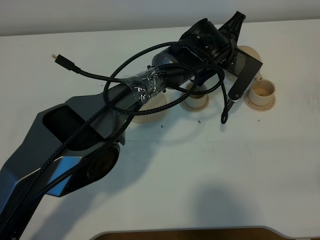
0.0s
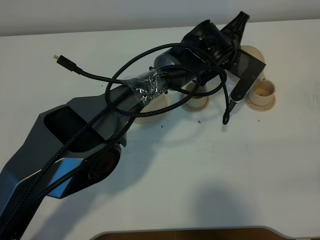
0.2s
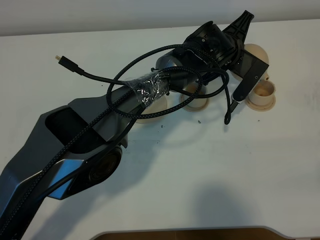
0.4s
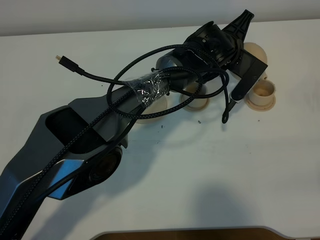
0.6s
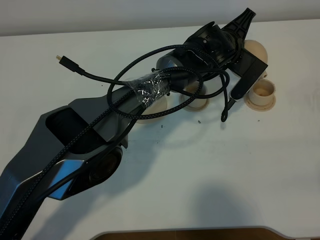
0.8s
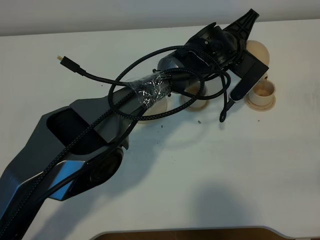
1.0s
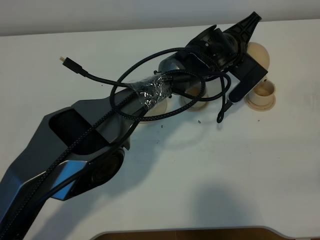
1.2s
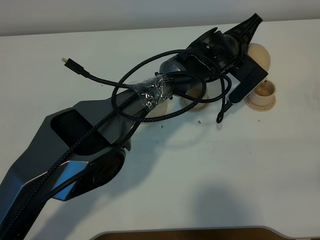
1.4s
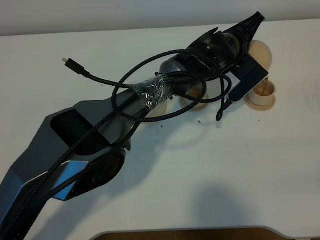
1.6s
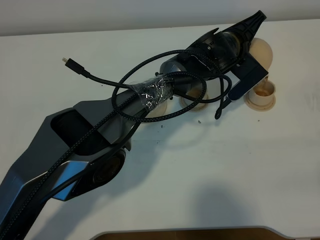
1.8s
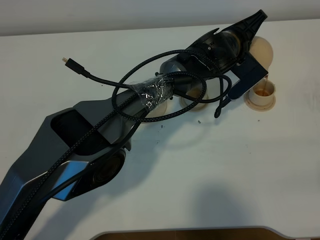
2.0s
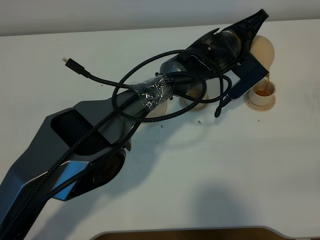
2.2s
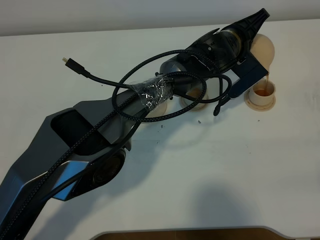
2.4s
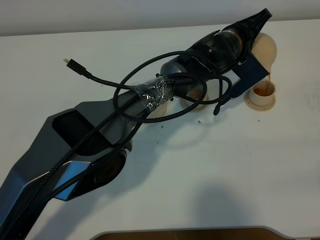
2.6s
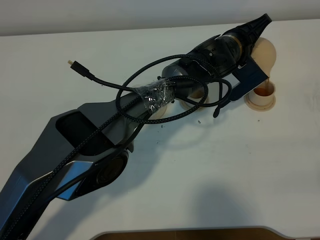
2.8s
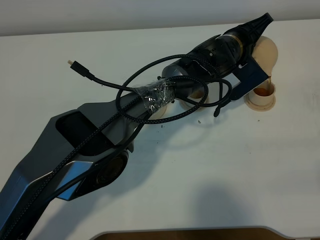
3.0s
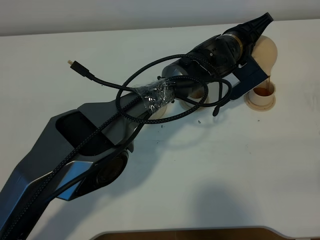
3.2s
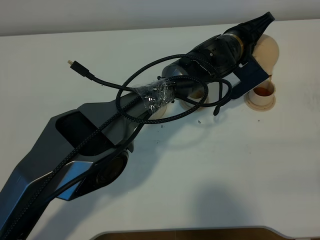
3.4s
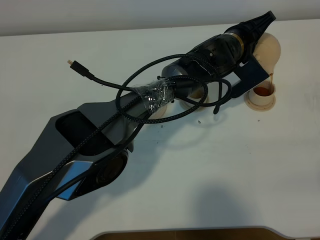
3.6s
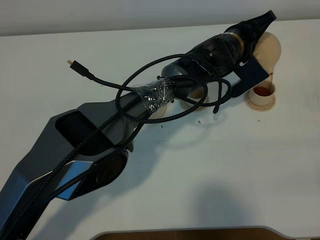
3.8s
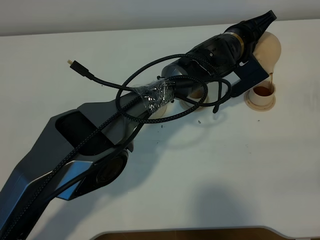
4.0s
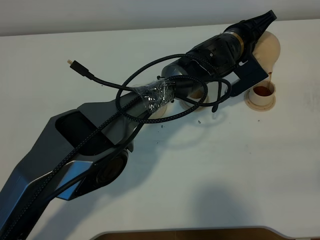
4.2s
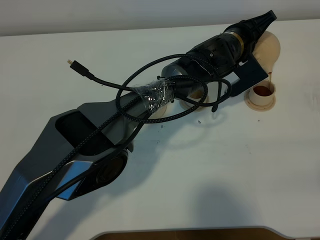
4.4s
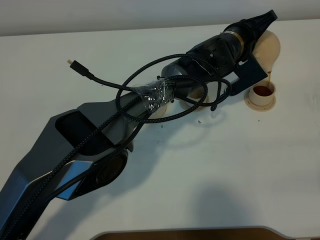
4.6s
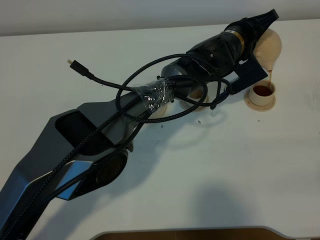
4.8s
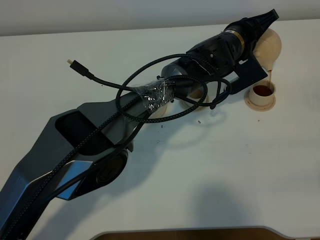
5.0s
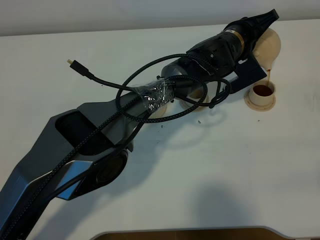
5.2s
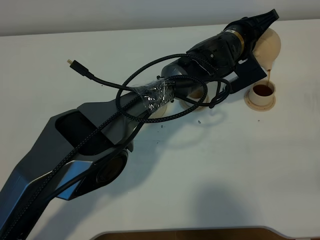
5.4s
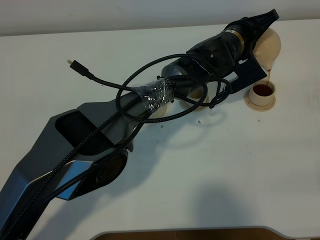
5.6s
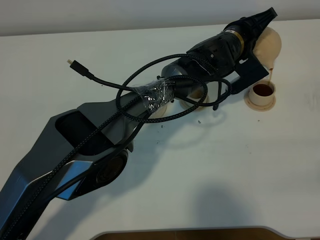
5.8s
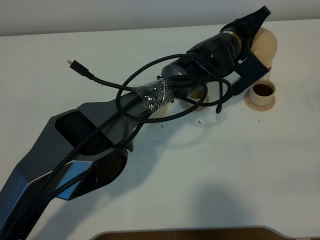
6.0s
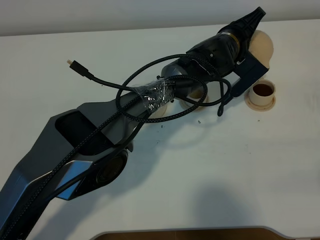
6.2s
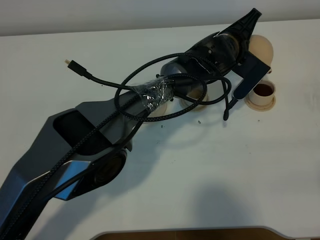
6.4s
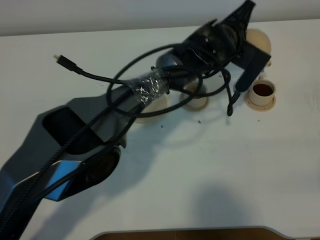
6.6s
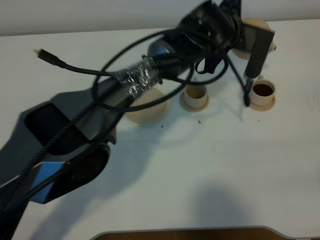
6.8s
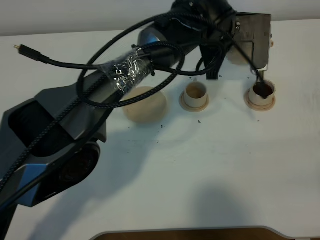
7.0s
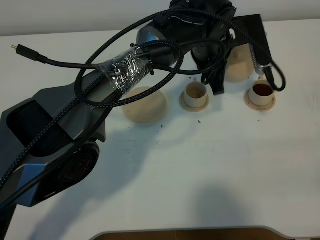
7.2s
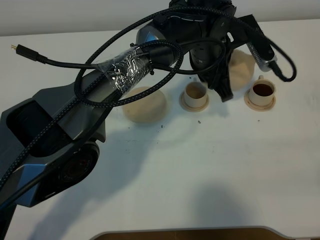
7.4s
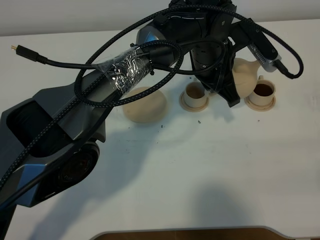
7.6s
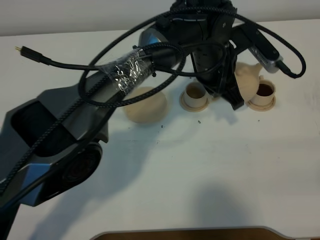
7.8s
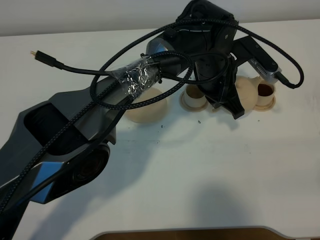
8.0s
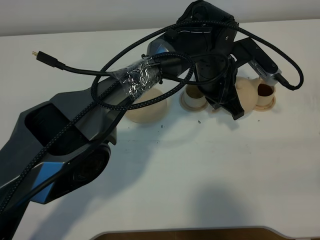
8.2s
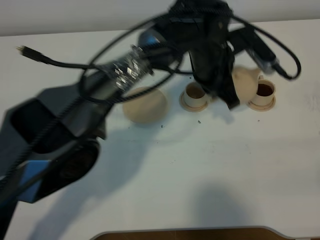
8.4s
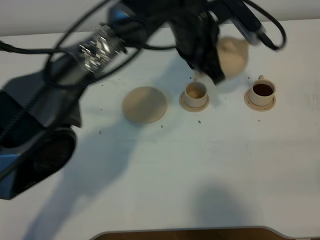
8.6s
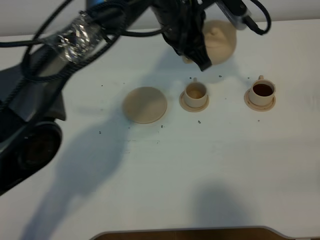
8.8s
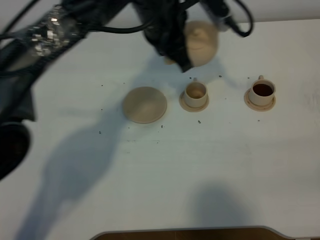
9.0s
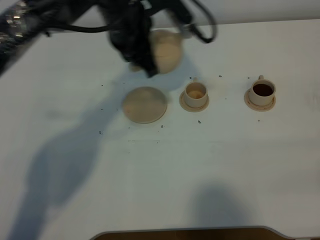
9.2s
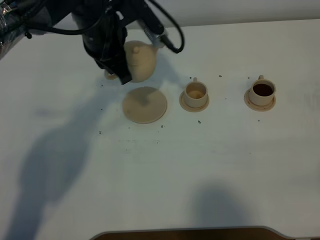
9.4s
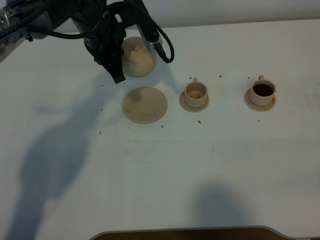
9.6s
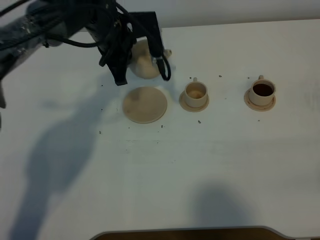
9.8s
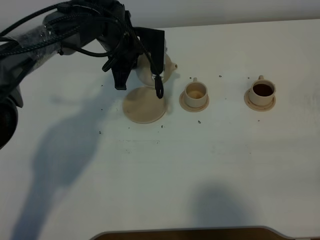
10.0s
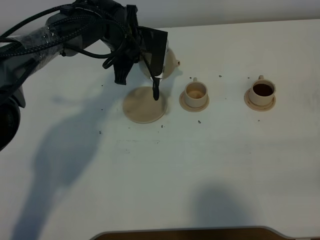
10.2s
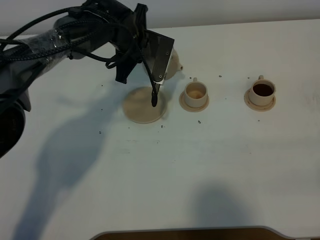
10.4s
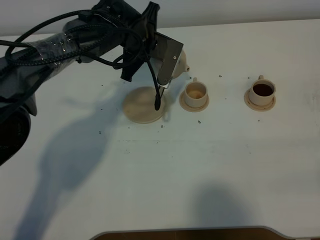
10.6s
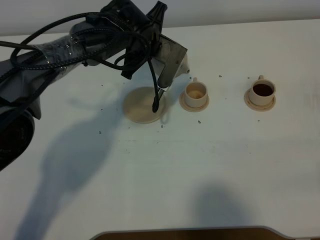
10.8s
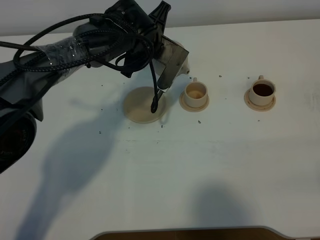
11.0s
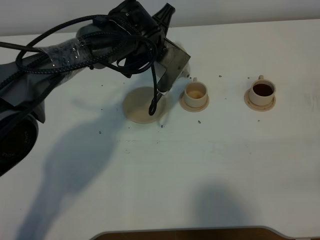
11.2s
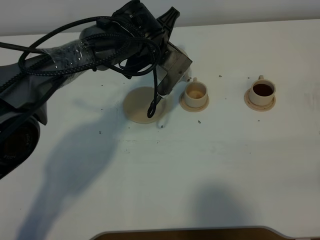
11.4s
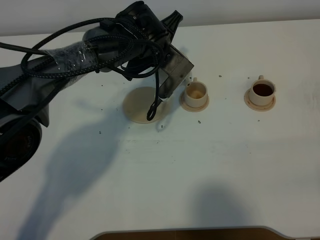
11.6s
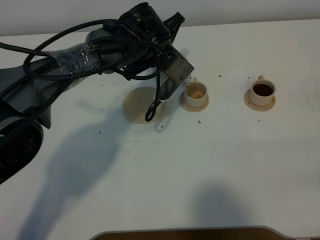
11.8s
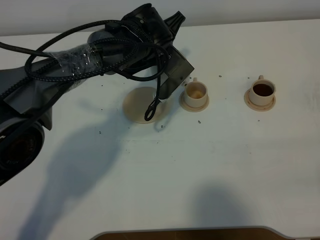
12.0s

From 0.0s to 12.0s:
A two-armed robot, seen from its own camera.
Task of the whole recording: grasp the brown teapot and pour the tea into the two brown teacups one by one, put the brown teapot back in its original place.
Step, from 0.0s to 6.6s: Pour tea into the teacup with the left gripper.
From 0.0s to 1.6s: There are only small adjustments of the grippers.
From 1.6s to 6.0s: The grippers make only small movements.
From 6.0s to 7.6s: The left gripper moves backward and upward, roughly 10 cm.
From 7.6s to 9.0s: The left gripper heads to the left and upward, covering some 10 cm.
From 9.0s to 10.4s: The left gripper moves downward and forward, roughly 10 cm.
From 10.4s to 12.0s: The left gripper travels to the right by approximately 5 cm.

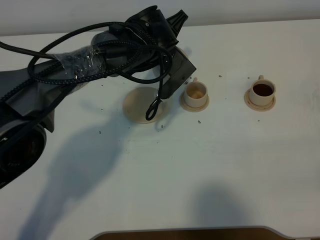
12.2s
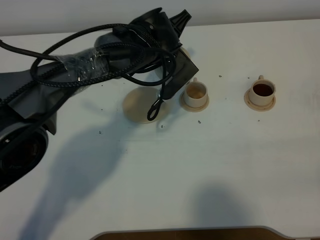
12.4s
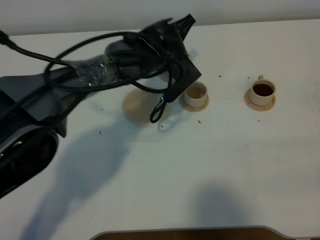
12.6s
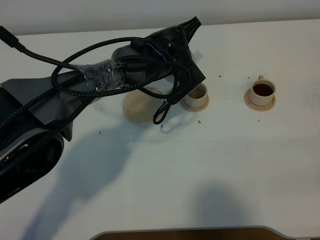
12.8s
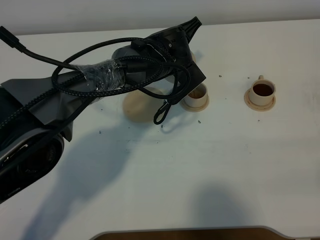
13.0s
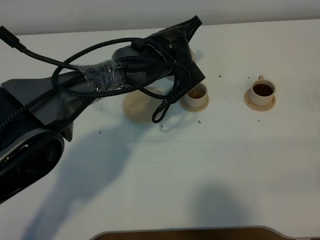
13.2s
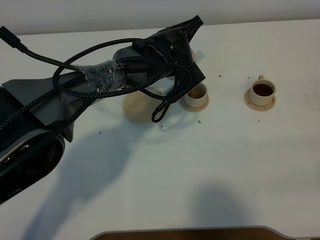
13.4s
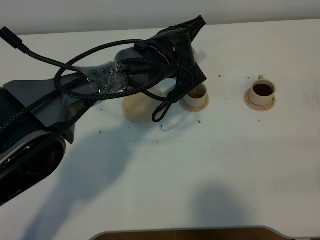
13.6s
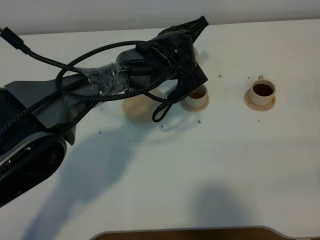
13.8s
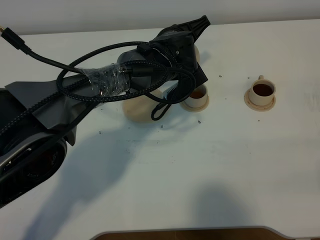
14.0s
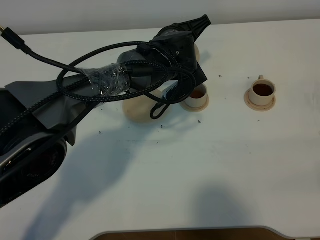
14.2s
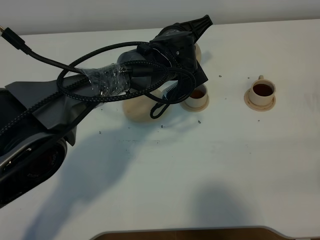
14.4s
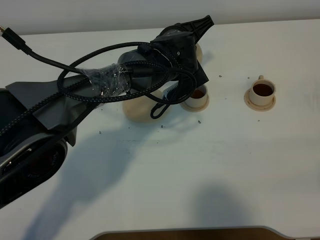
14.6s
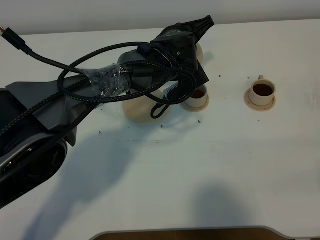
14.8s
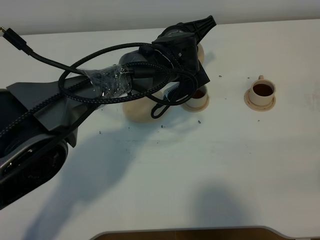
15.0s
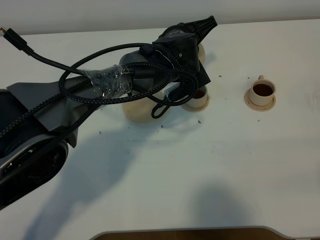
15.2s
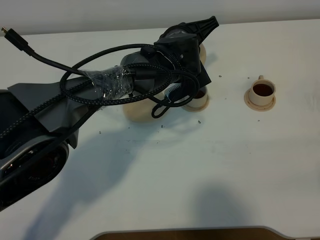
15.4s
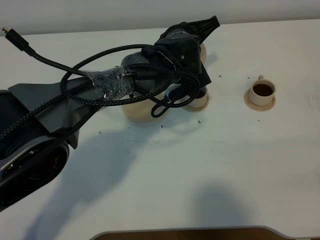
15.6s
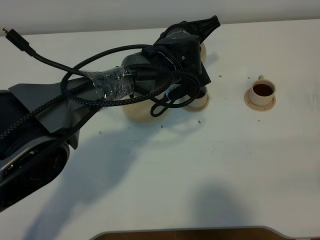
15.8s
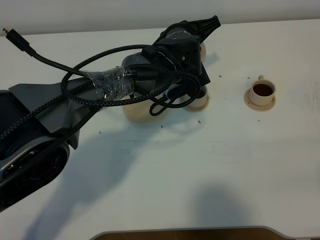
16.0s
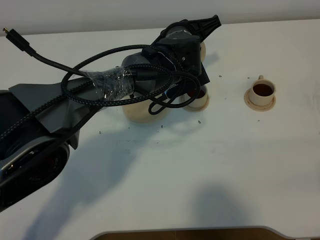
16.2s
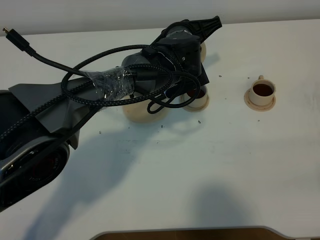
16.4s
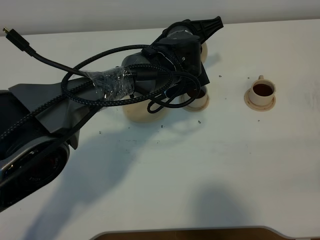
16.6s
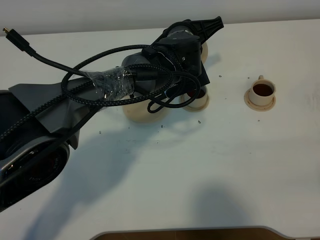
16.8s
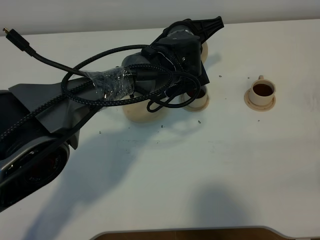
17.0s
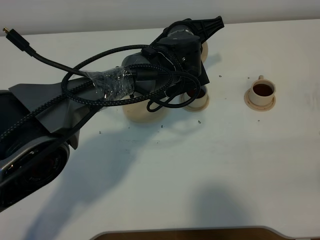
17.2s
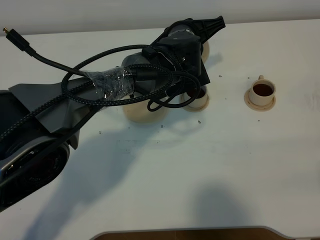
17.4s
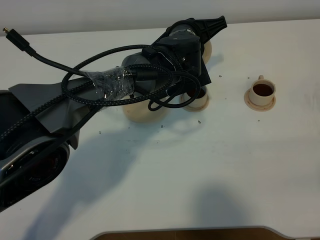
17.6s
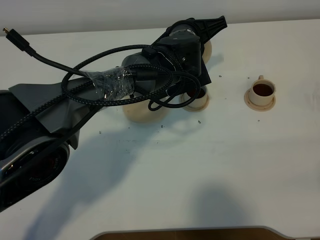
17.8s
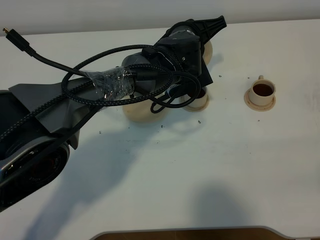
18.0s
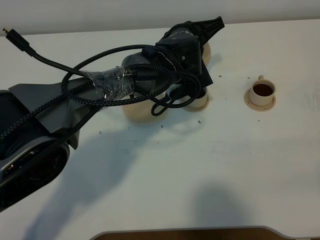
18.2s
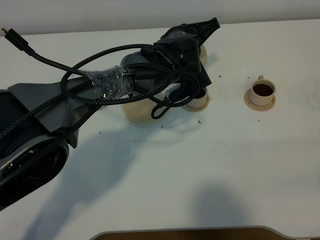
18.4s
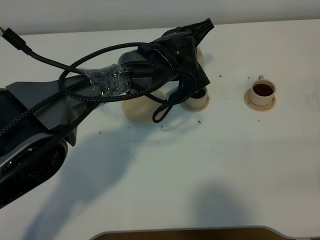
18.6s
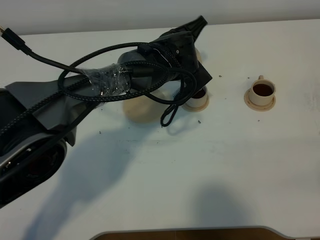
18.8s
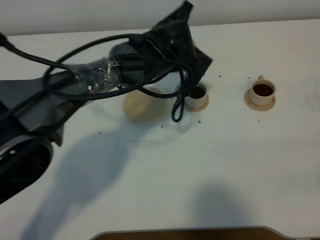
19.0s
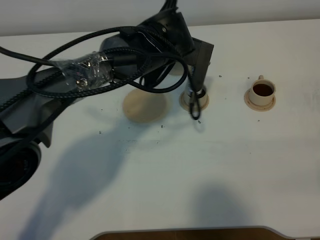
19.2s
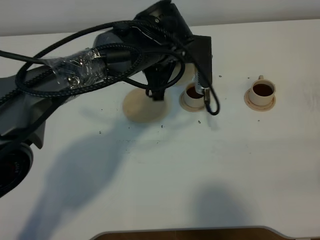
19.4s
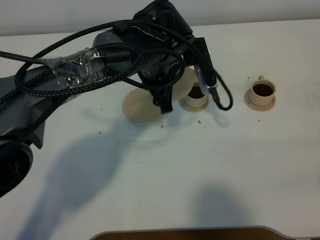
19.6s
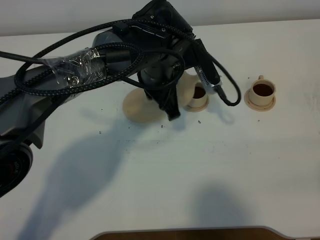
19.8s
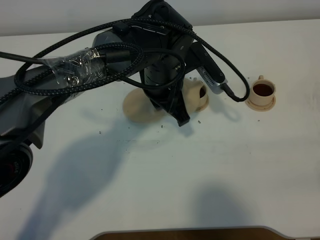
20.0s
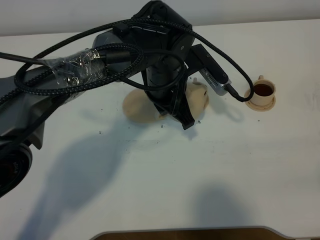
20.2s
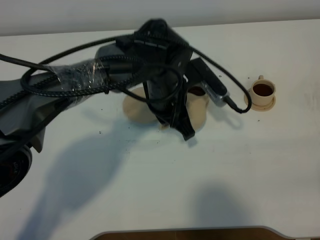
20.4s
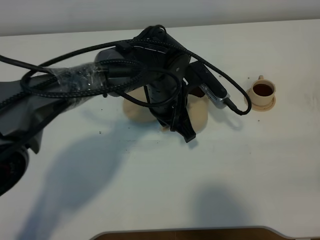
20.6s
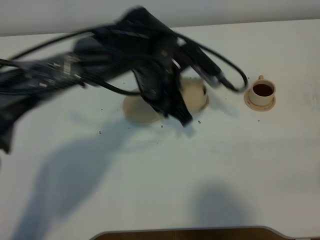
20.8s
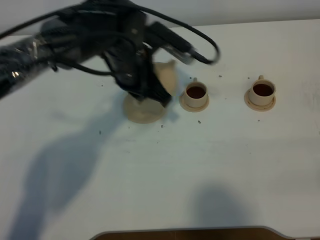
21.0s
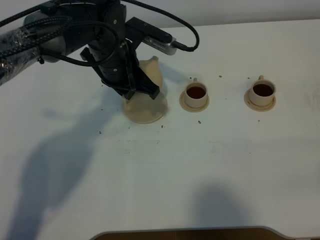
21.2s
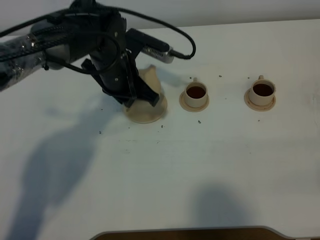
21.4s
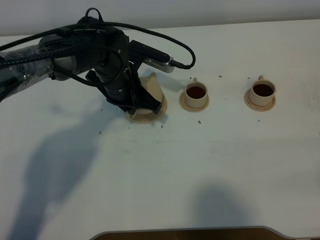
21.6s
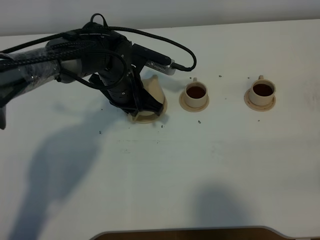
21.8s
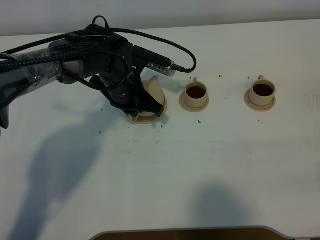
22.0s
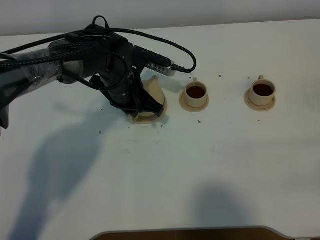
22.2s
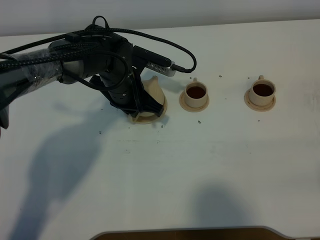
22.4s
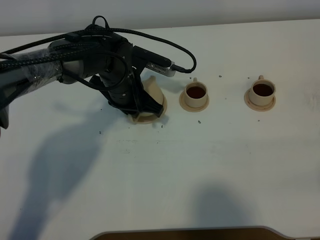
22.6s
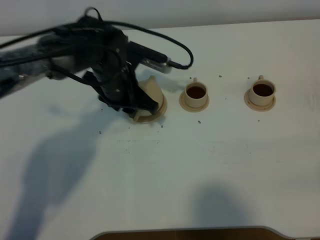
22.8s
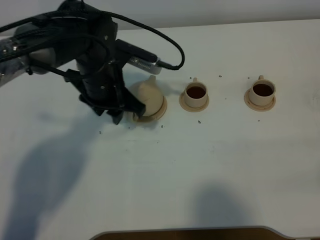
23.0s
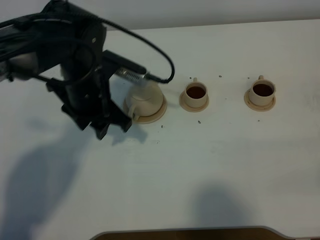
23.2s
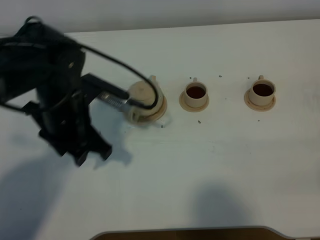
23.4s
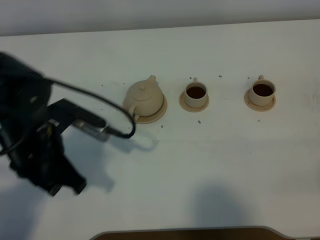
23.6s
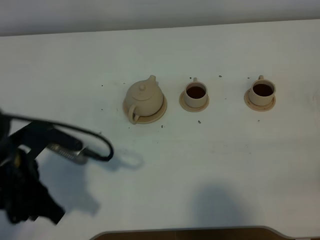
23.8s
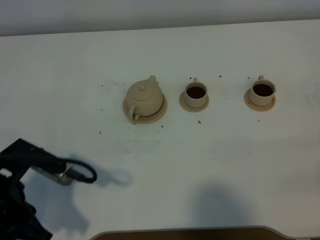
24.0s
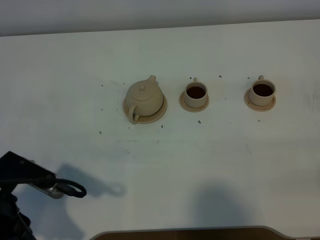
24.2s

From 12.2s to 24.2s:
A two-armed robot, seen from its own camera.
Task of the whole recording: grasp the brown teapot and pour the tea into the two brown teacups one by one, put the brown teapot back in its original place.
Step, from 12.2s to 19.2s: Pour tea into the teacup with the left gripper.
From 13.8s to 16.6s: There are only small adjustments of the grippers.
From 16.6s to 18.2s: Both grippers stay about where they are.
From 18.2s to 19.8s: The left gripper shifts roughly 5 cm backward.
From 19.8s to 21.2s: The left gripper shifts roughly 10 cm to the left.
From 21.2s to 22.6s: The left gripper goes about 5 cm downward, and opens its fingers.
From 22.6s to 24.2s: The left gripper heads backward and to the left, covering roughly 30 cm.
